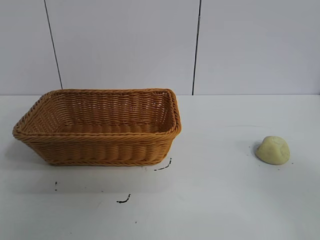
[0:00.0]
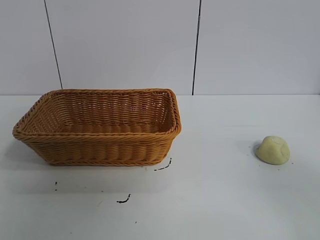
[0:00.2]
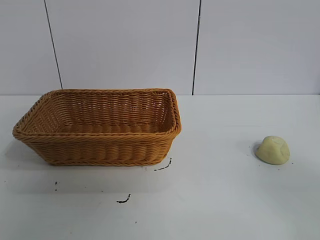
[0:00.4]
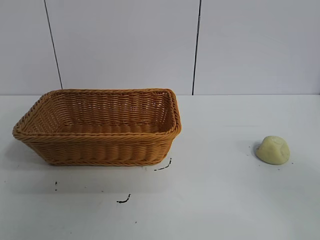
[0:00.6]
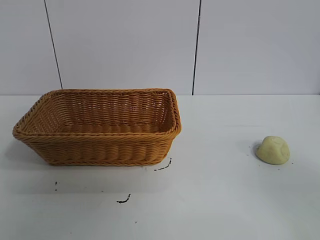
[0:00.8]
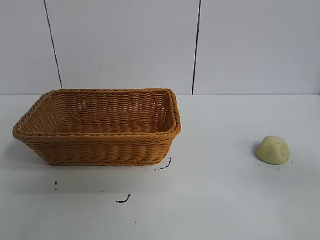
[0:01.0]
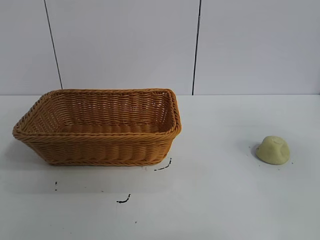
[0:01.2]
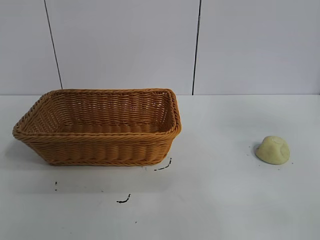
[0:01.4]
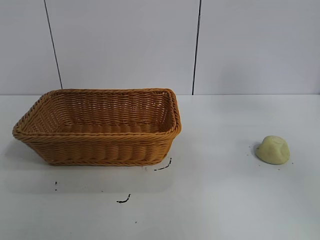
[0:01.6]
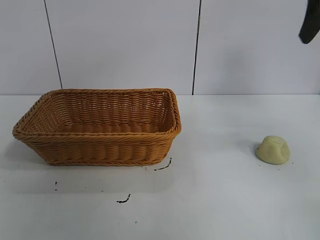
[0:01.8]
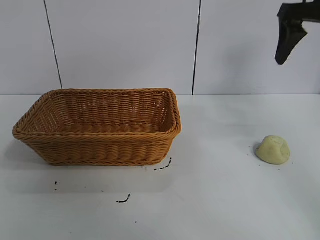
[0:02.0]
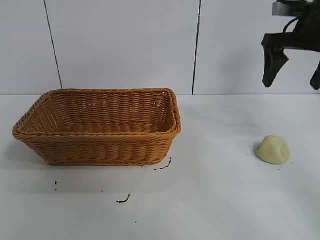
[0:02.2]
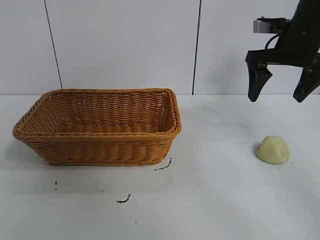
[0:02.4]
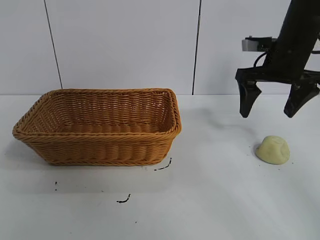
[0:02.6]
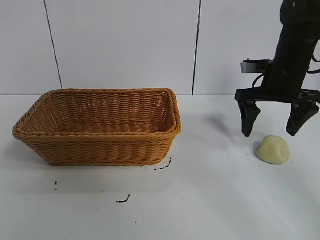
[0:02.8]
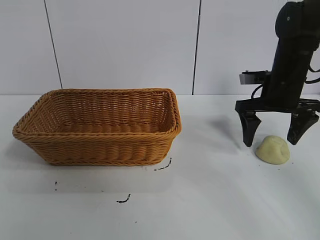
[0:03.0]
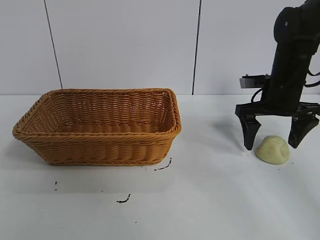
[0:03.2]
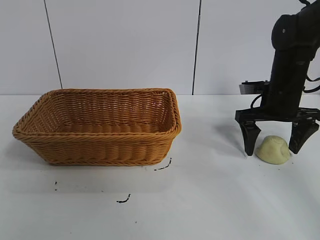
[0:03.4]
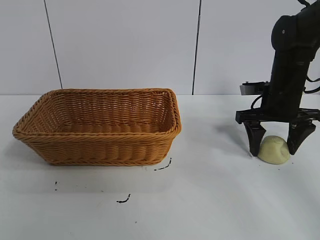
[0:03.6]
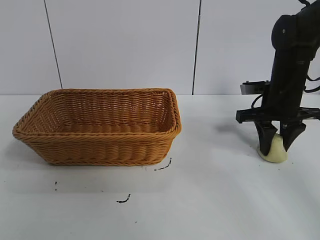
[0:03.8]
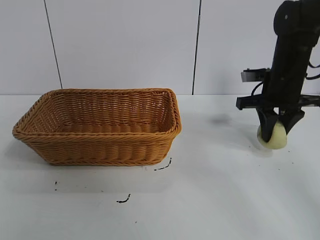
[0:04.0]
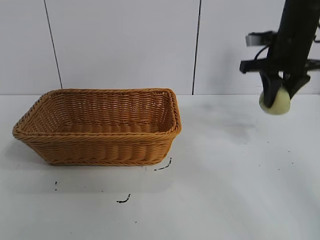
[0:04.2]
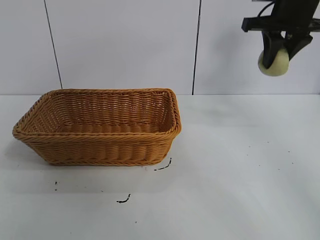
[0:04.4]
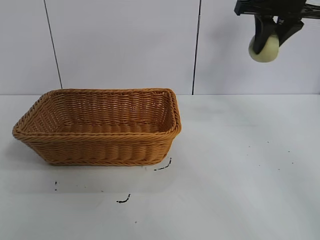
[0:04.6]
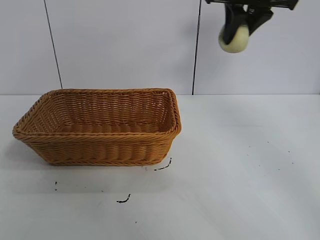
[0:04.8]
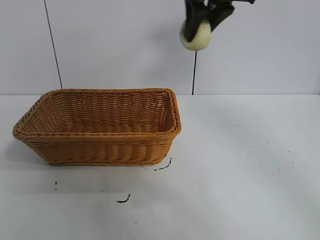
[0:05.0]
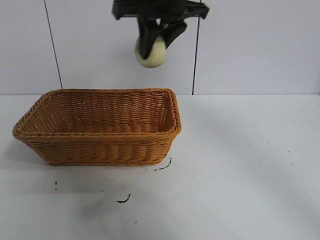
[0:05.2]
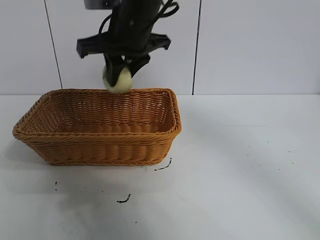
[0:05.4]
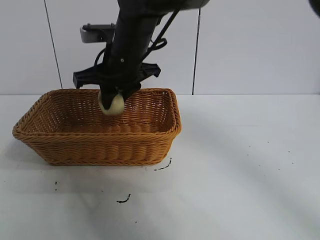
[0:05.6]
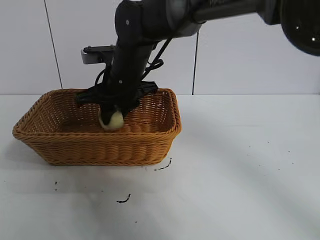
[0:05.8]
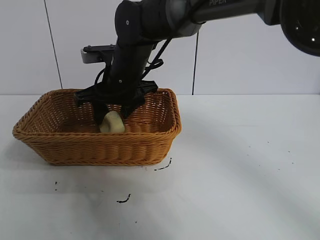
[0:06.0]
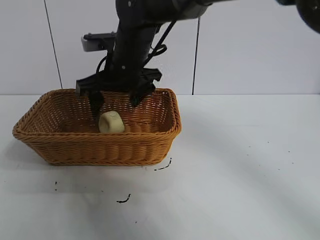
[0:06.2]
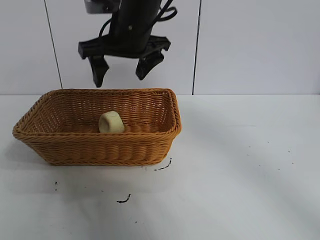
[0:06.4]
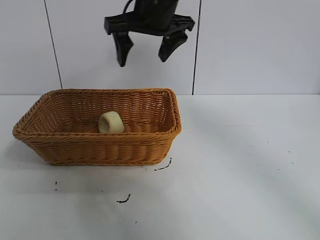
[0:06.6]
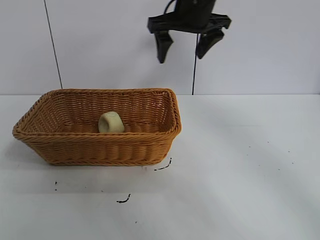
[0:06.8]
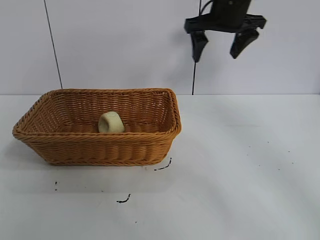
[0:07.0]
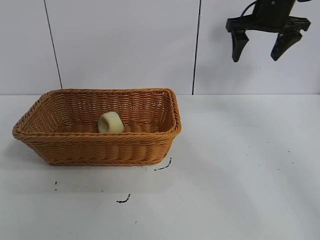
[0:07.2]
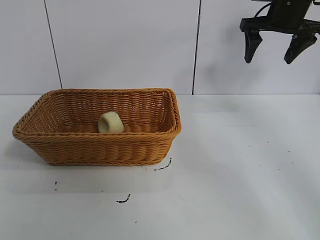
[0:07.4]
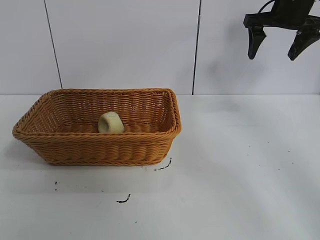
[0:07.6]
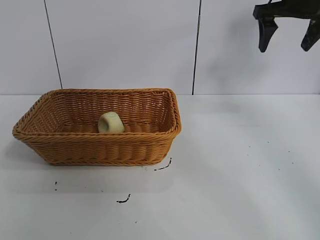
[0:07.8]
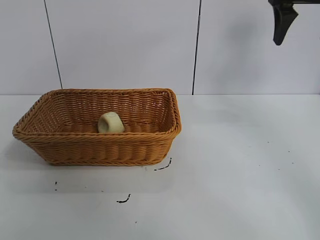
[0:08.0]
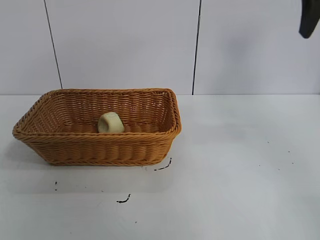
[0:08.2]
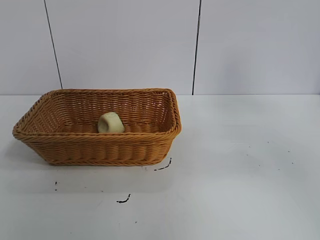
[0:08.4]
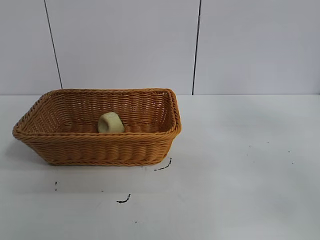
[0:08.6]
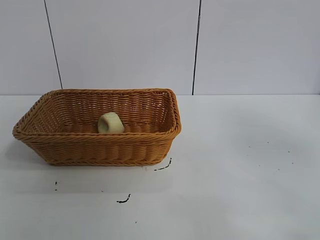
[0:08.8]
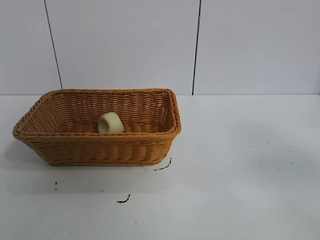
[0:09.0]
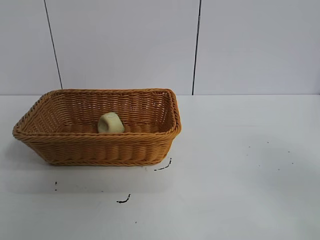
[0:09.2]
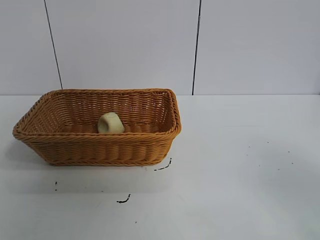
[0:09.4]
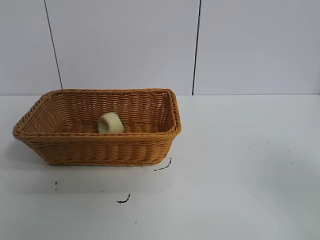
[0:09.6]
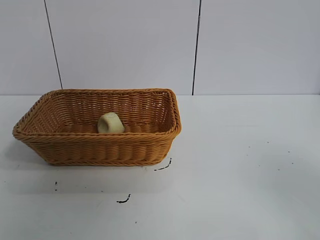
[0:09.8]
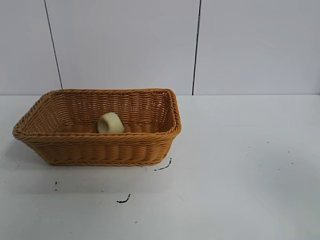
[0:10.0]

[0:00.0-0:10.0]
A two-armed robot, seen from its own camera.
Task of the whole recording: pick up the egg yolk pastry and put it into the basket.
Step, 0:01.0 to 0:03.8: Grasp egg yolk pastry with right gripper.
Step, 0:04.0 to 0:06.2: Place the egg yolk pastry in the basket with right gripper.
